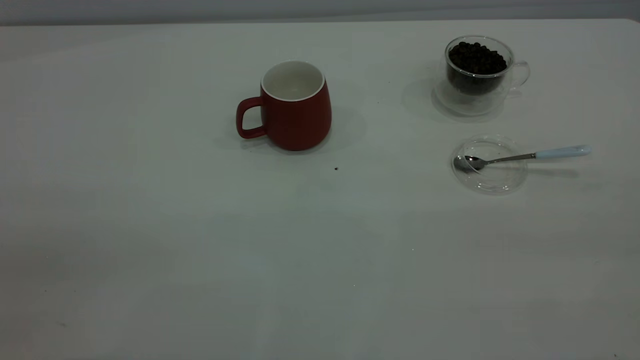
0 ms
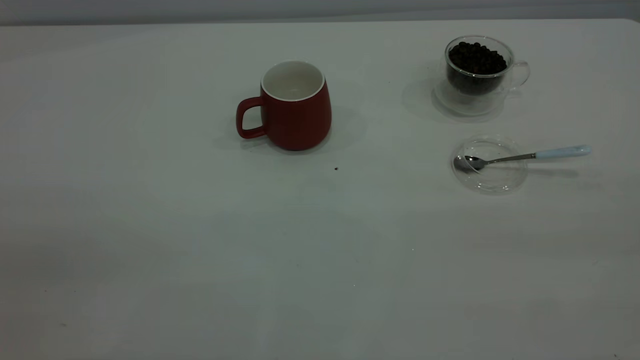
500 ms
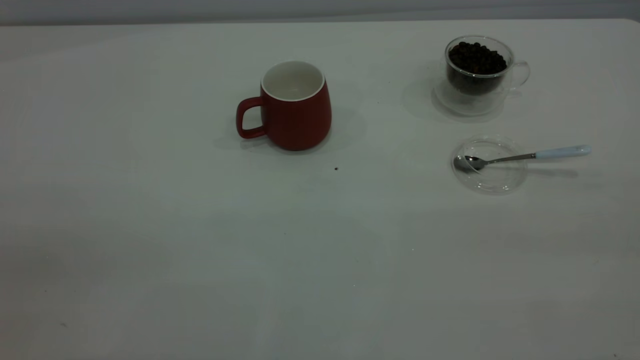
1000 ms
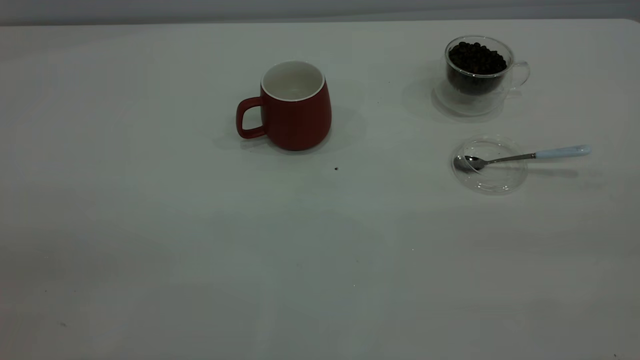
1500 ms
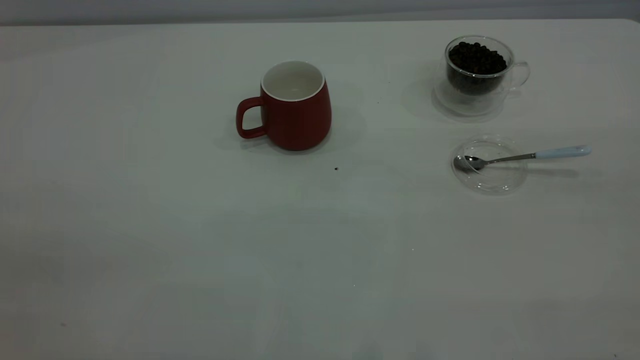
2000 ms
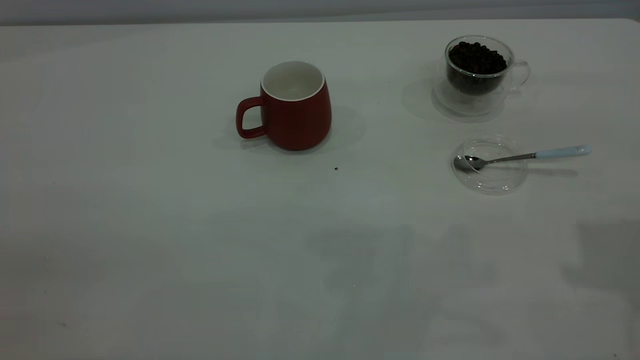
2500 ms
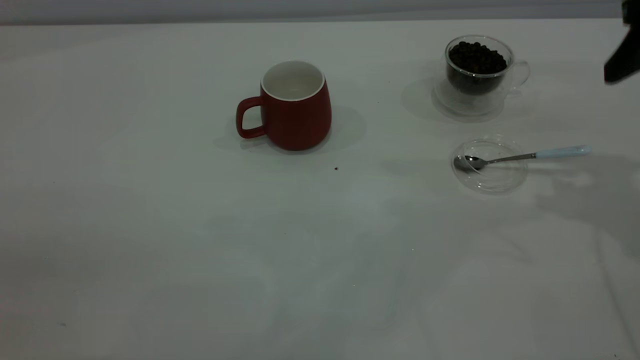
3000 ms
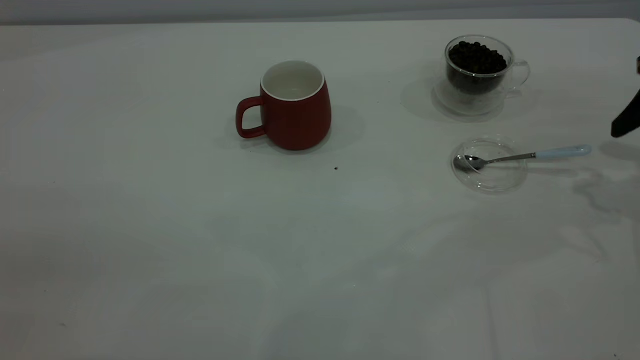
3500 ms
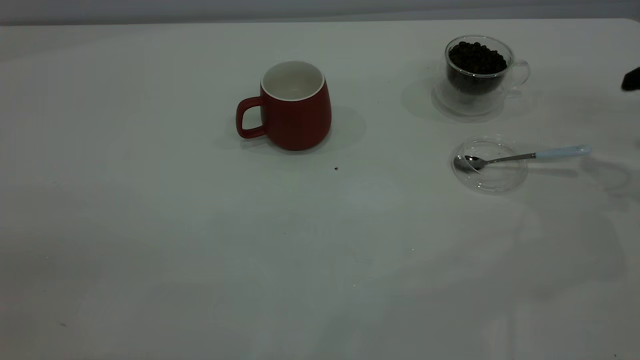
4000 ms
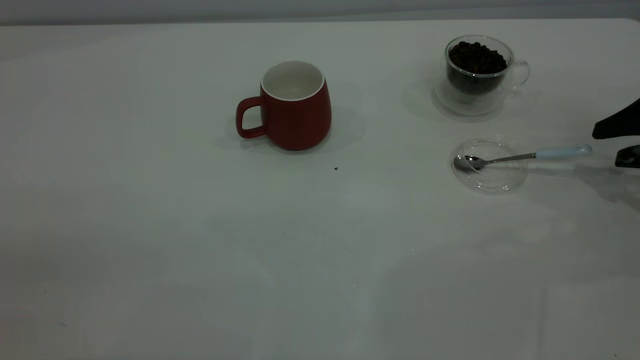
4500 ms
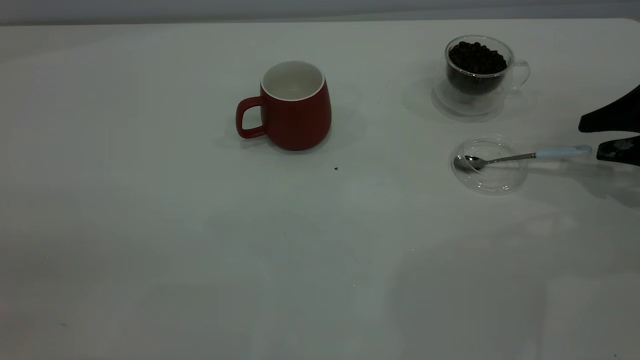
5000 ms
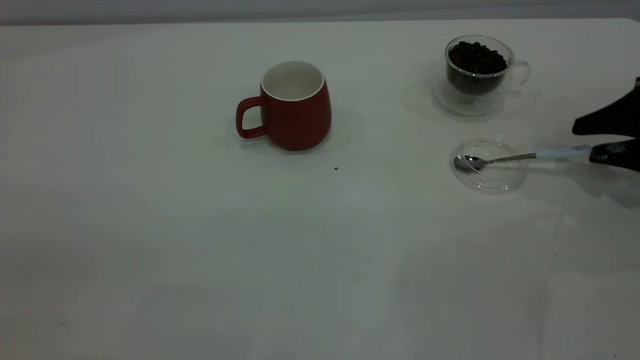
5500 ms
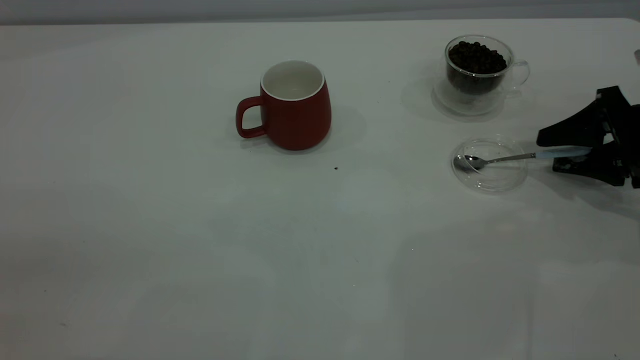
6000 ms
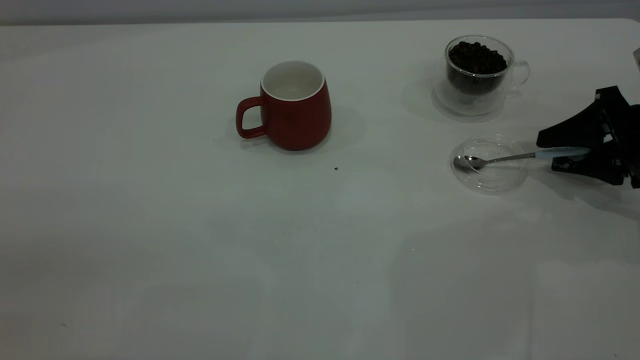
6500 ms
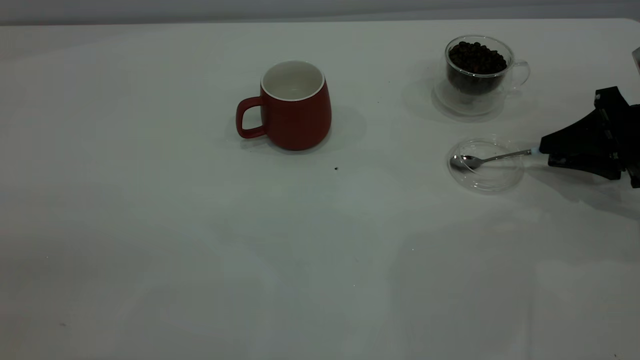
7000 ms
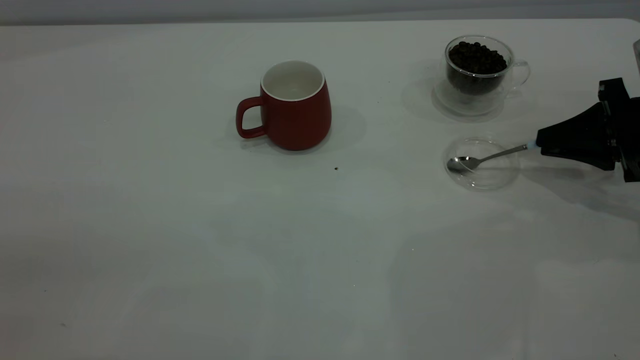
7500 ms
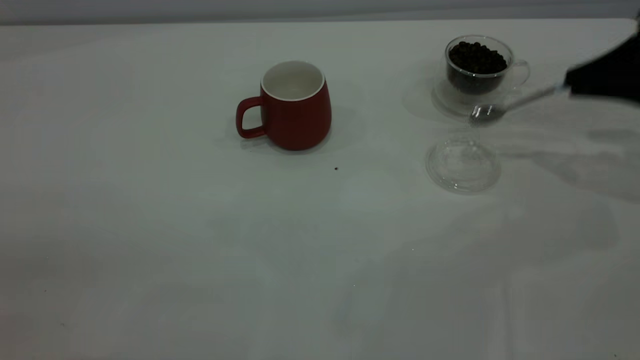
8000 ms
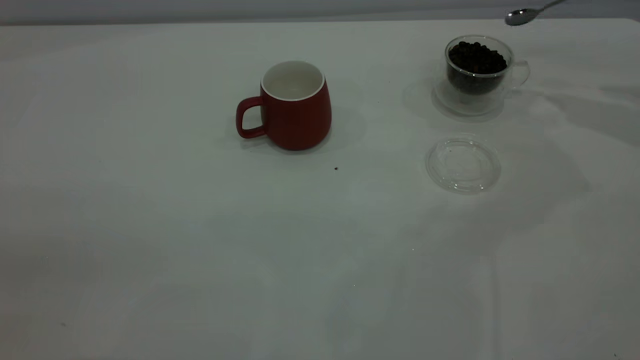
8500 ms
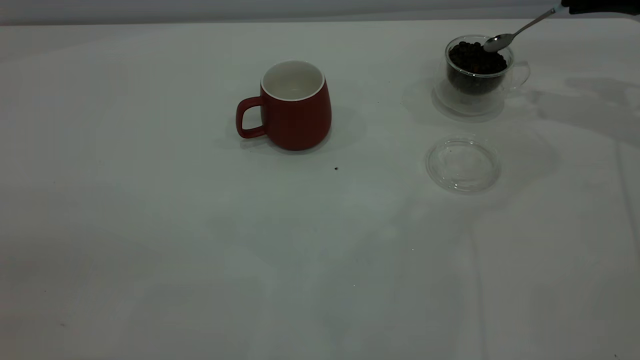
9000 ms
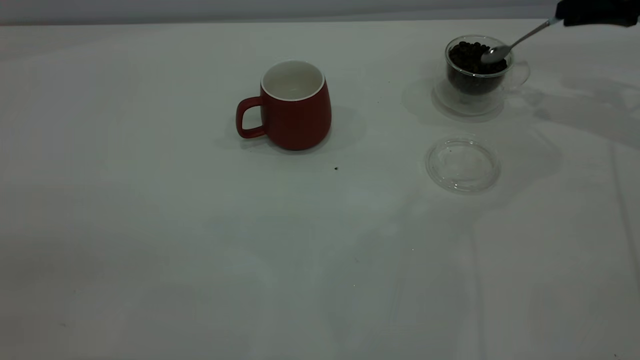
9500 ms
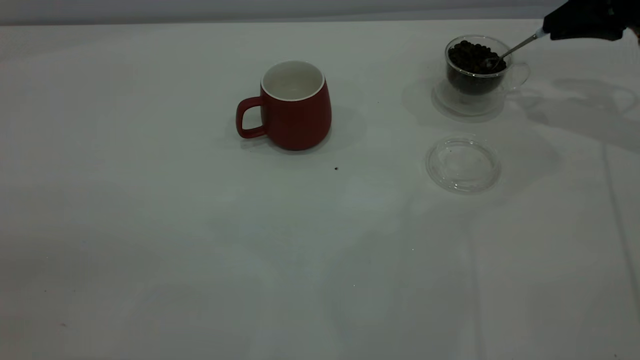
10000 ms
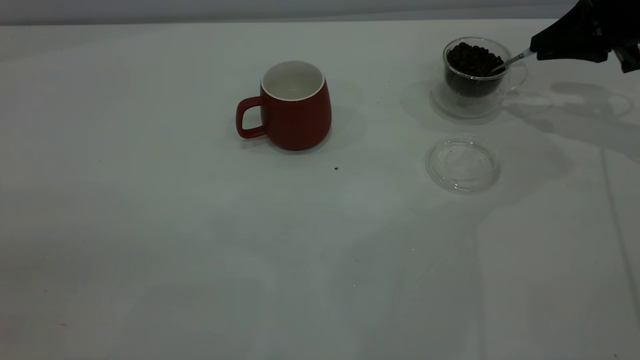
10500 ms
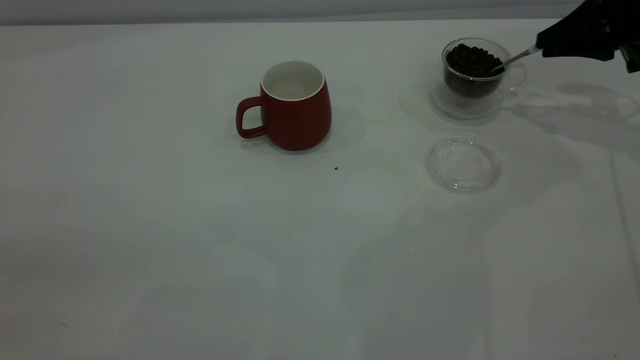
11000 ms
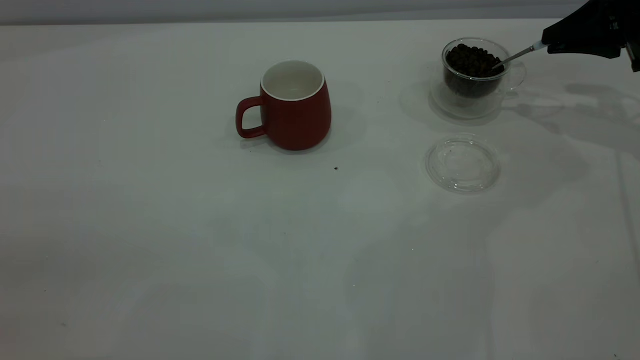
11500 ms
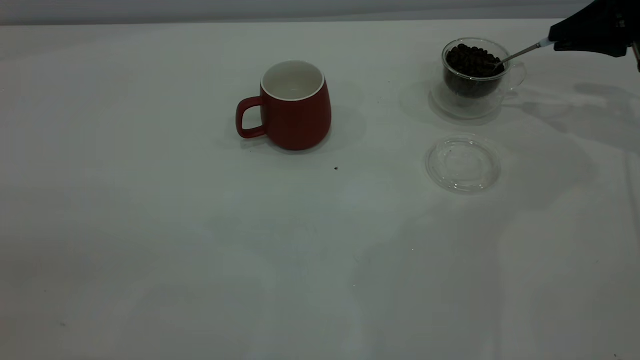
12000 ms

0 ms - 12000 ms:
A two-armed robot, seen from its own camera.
Task of the whole recording: the left gripper place the red cup in the center of the table, the right gripper take the blue spoon from the cup lid and scoop out the coffee beans from the coffee cup and put them into the red cup, the right gripper put the spoon back into the cup lid.
Step, 0 ms - 7500 ms: Pick up the spoon.
4000 ms - 6000 ms: The right gripper shifts some 10 cm downward.
6000 ms - 8000 ms: The right gripper shifts roughly 10 cm upward, and closes its fingers.
8000 ms - 10000 ms: The right gripper heads forward, covering about 10 cm.
10000 ms - 12000 ms: There are only small adjustments of the grippers.

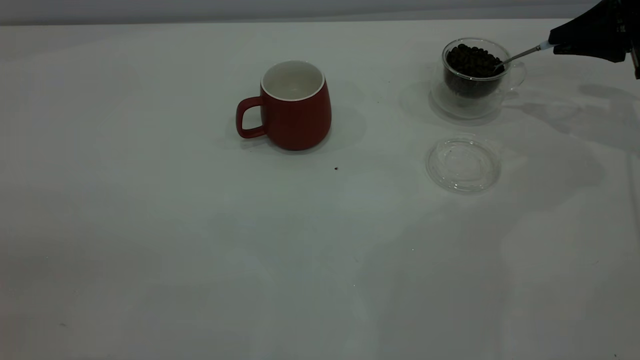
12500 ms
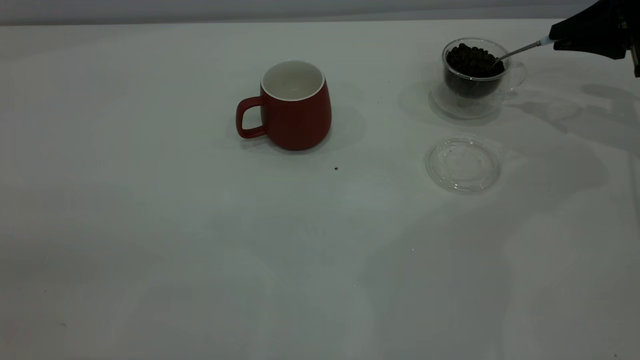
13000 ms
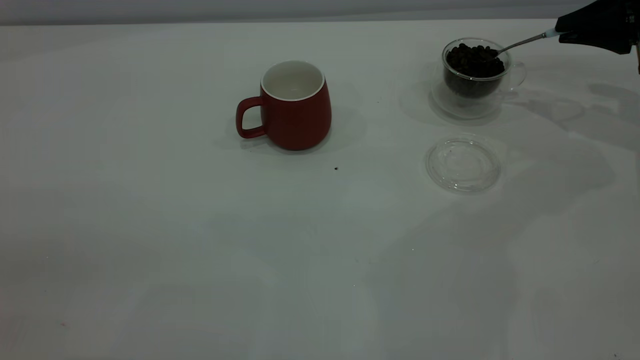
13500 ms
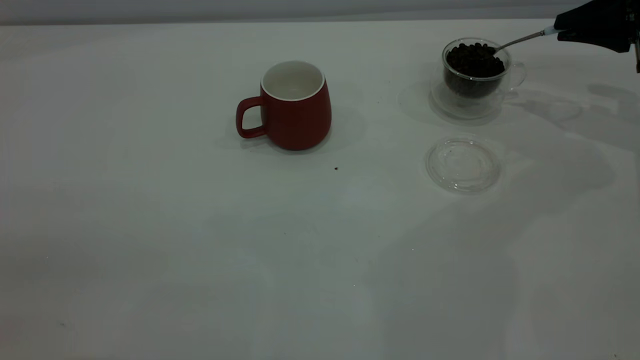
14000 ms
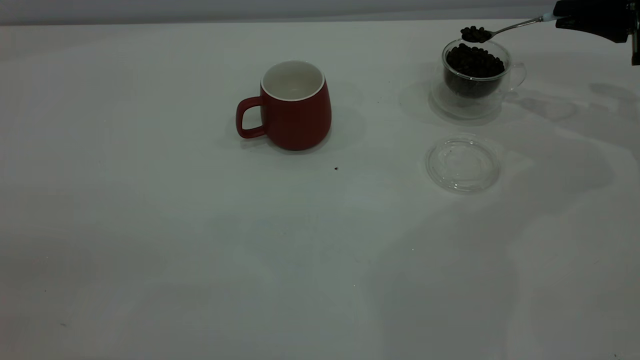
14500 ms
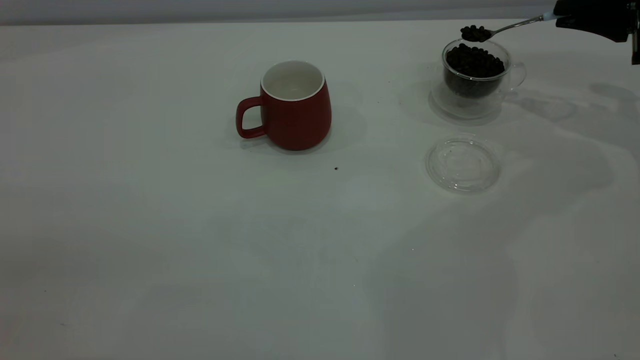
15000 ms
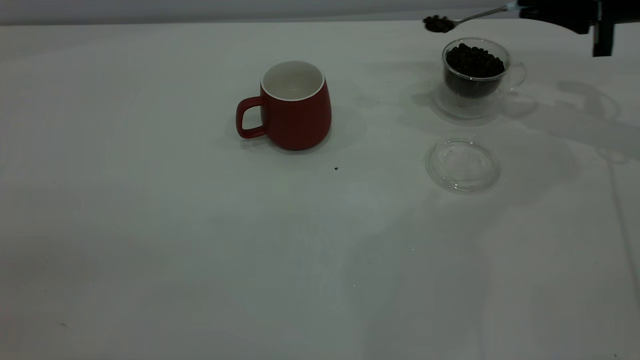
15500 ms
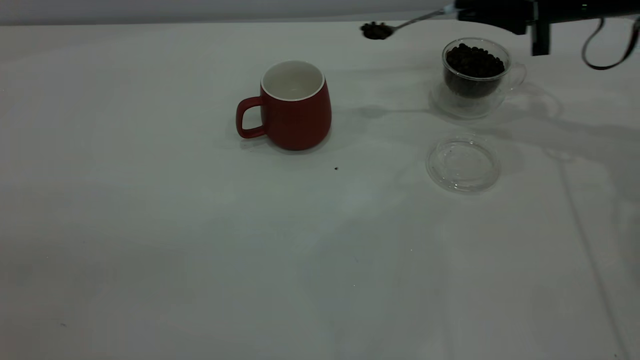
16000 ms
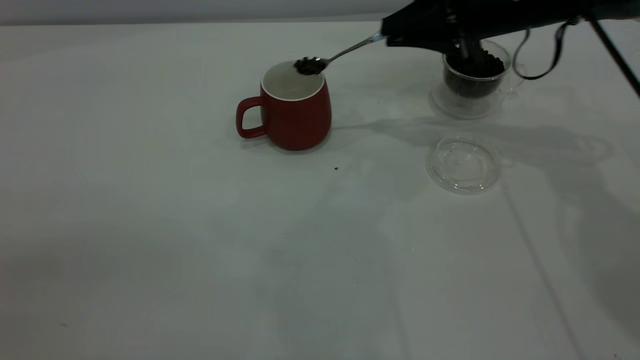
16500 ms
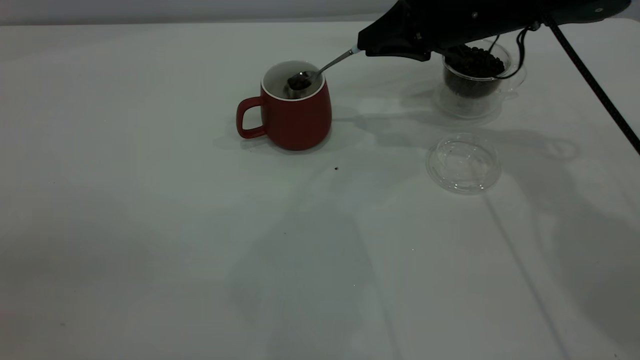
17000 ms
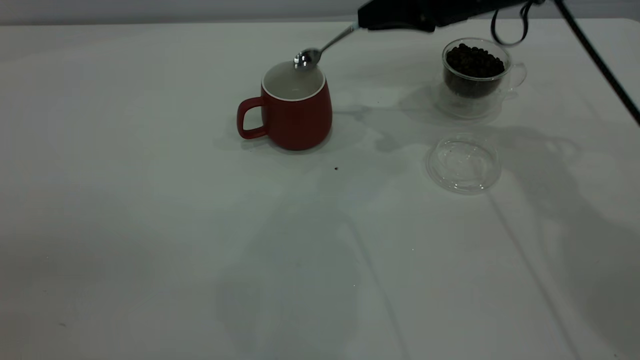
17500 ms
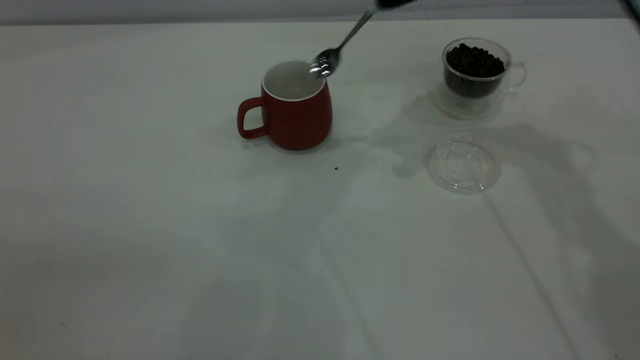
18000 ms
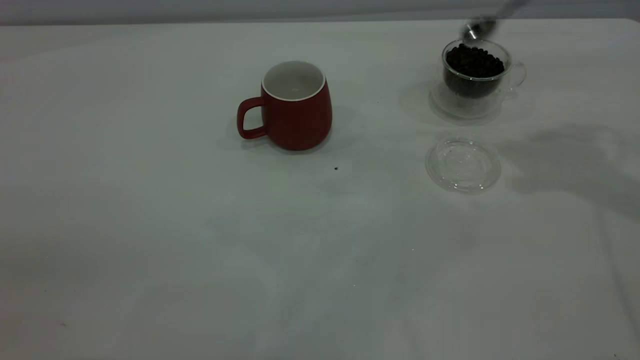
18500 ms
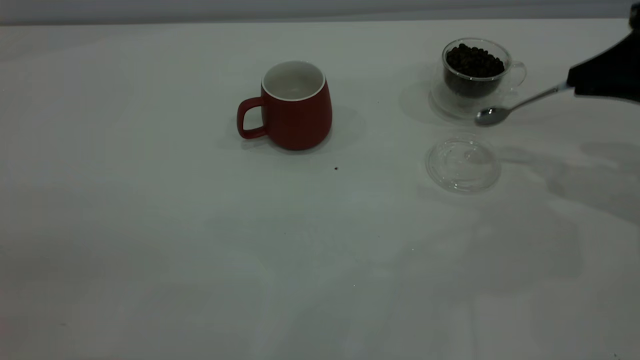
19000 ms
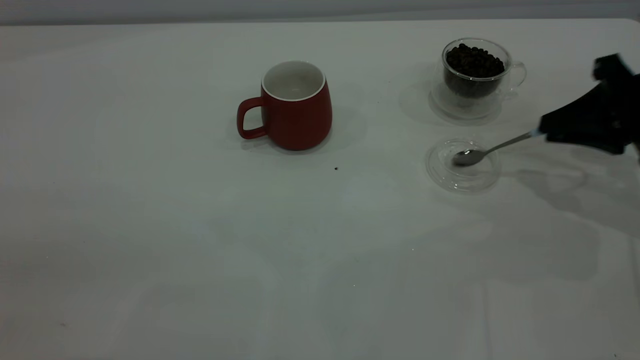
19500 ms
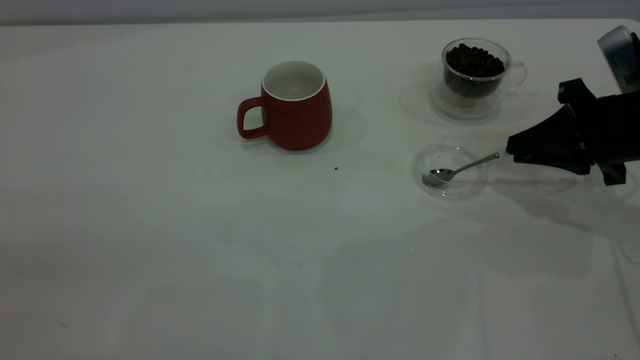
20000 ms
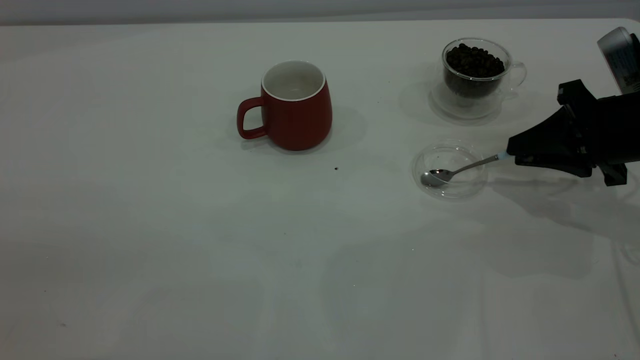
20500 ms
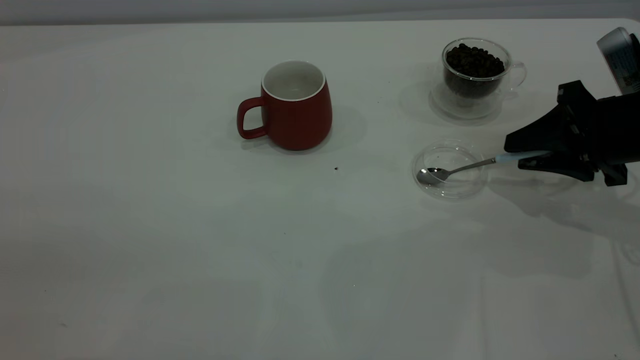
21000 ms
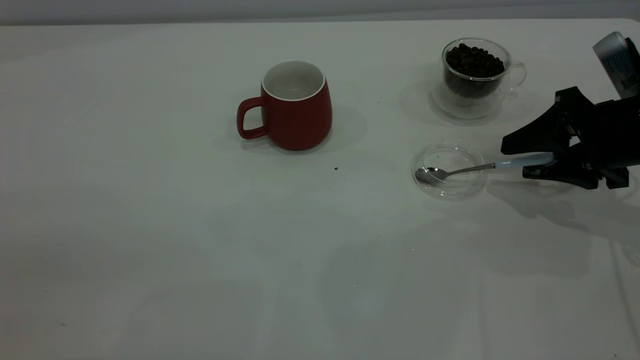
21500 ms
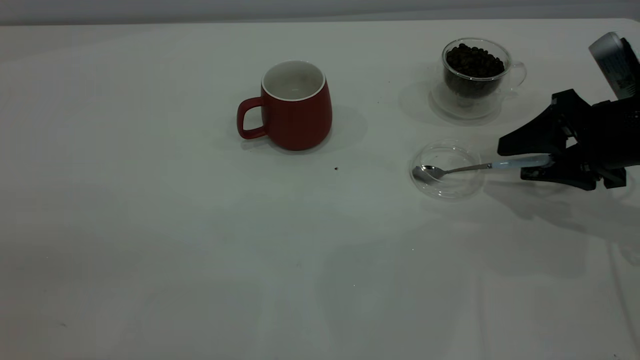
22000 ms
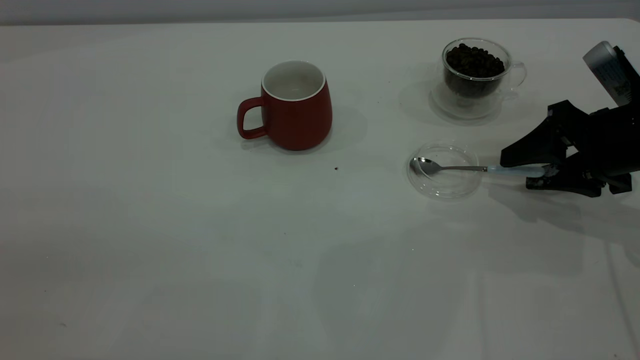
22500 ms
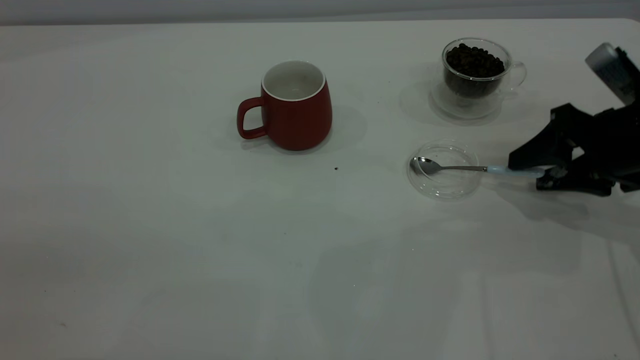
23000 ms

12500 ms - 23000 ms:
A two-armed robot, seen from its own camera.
Task of the whole recording: the left gripper place the red cup in the center of the table, the right gripper take the blue spoon from the cup lid and scoop out the coffee beans from the coffee cup and put them into the red cup, the right gripper put the spoon back into the cup lid.
Step, 12500 ms - 17500 ms: Scoop a spoonful of beans into the cup.
12500 ms - 14500 ms: The grippers move only a little.
14500 ms - 16500 ms: The right gripper heads to the left, covering approximately 20 cm.
16500 ms - 19000 ms: The right gripper is displaced to the right and backward by approximately 20 cm.
19000 ms - 21000 ms: The right gripper goes approximately 5 cm downward, and opens its fingers.
21000 ms - 23000 ms: The right gripper opens its fingers.
